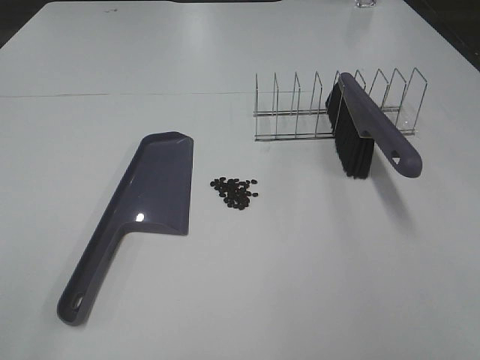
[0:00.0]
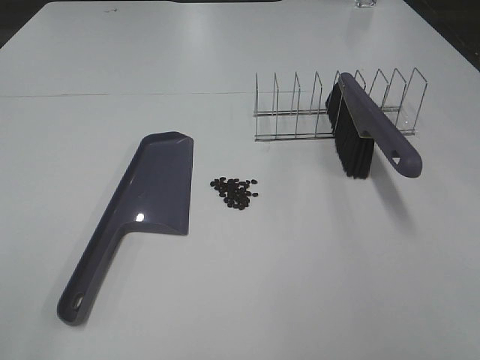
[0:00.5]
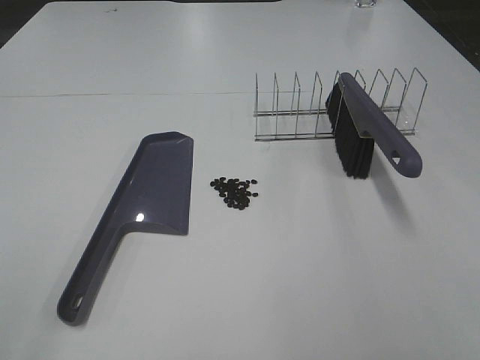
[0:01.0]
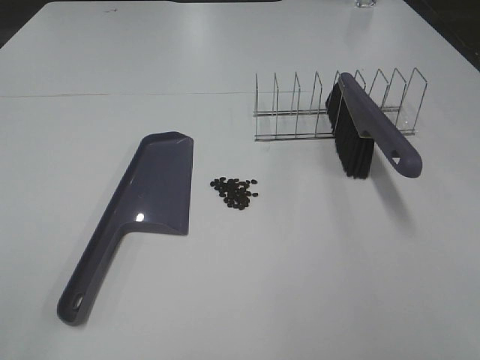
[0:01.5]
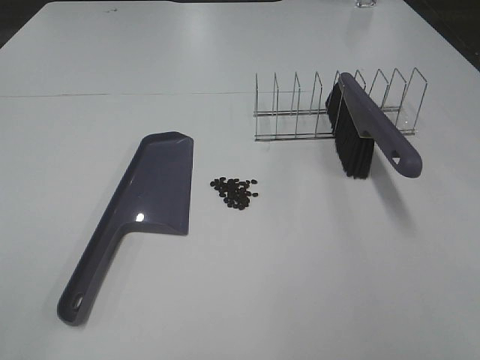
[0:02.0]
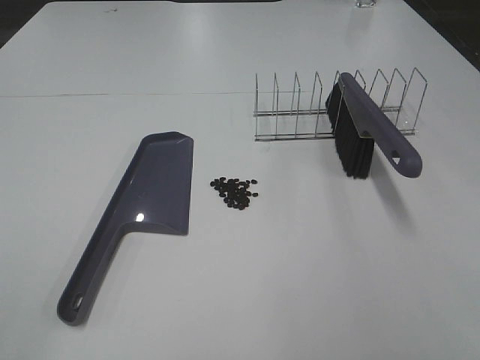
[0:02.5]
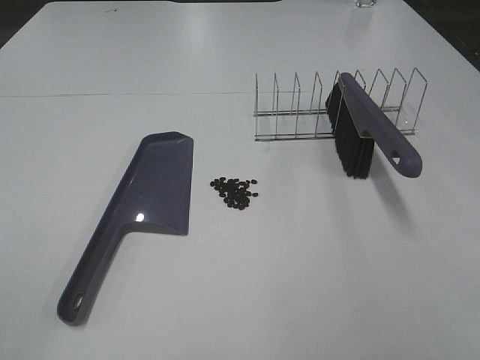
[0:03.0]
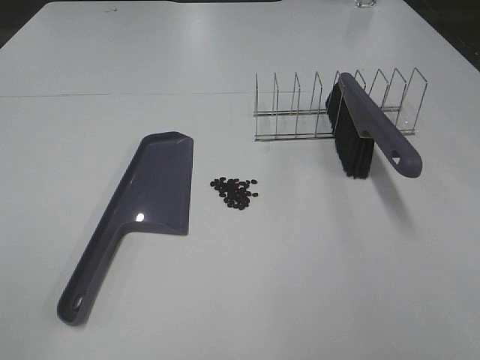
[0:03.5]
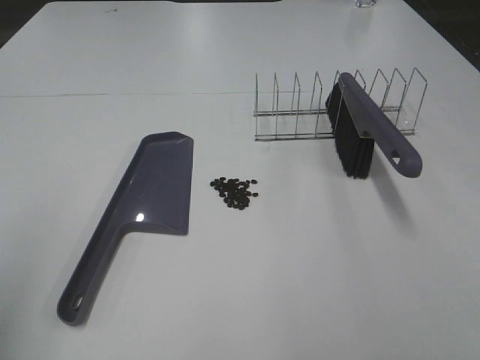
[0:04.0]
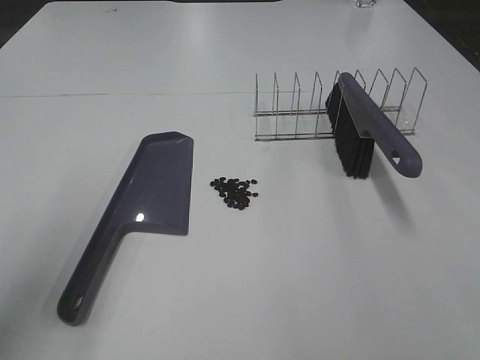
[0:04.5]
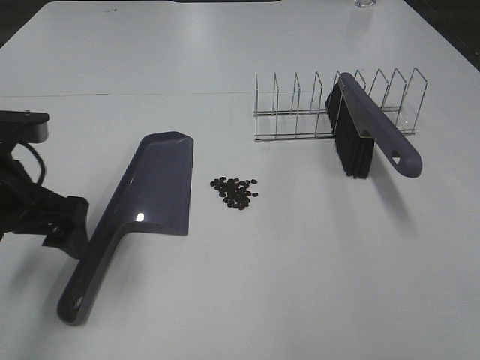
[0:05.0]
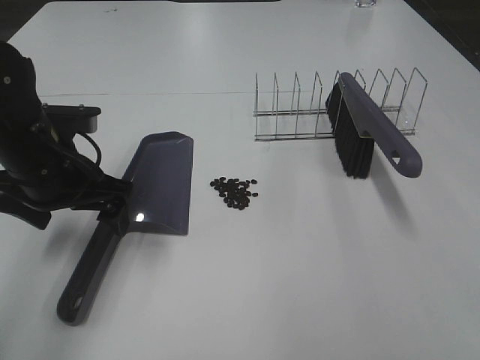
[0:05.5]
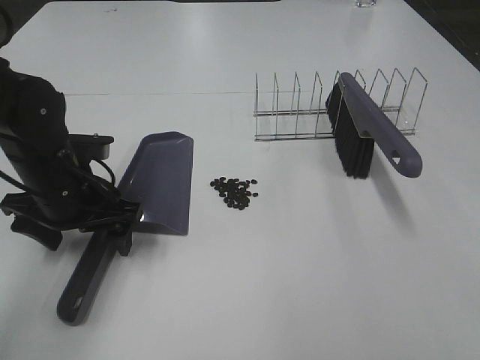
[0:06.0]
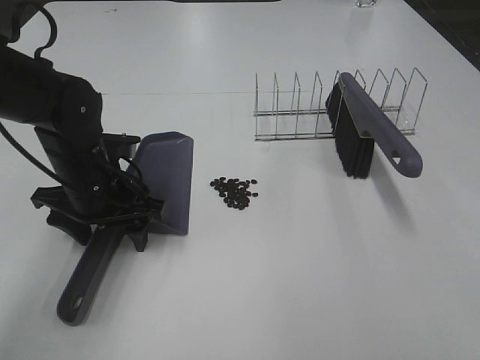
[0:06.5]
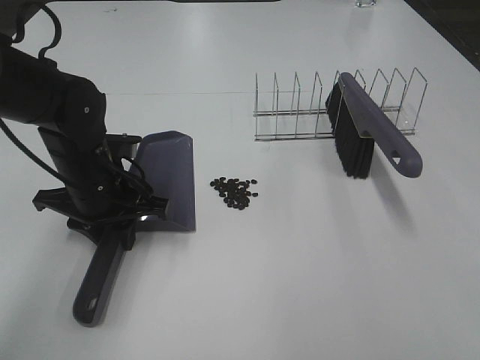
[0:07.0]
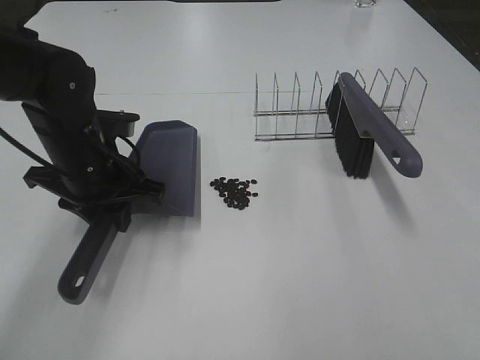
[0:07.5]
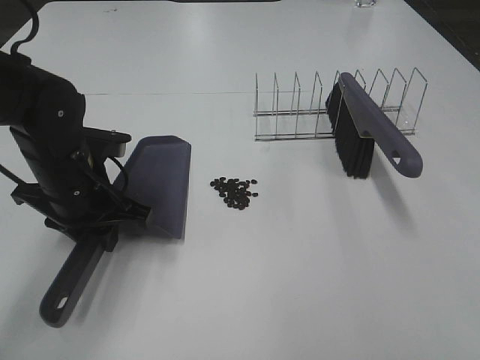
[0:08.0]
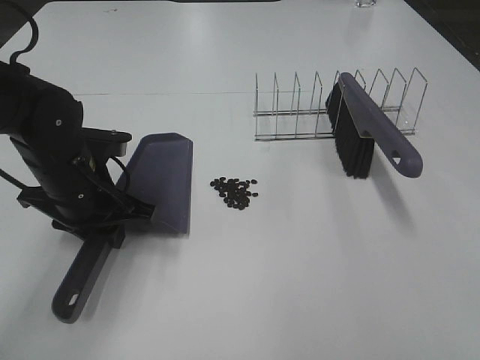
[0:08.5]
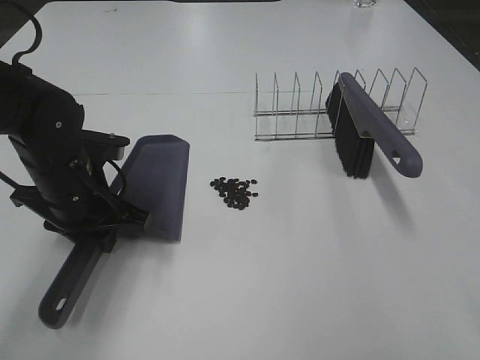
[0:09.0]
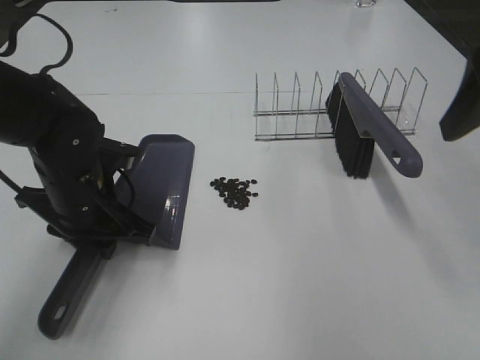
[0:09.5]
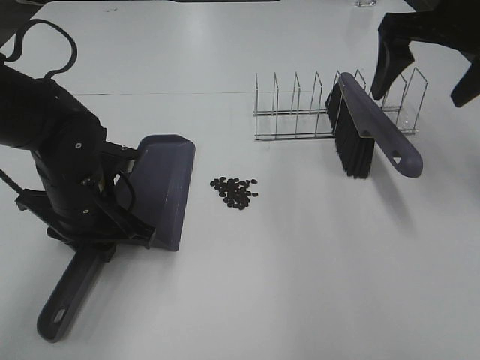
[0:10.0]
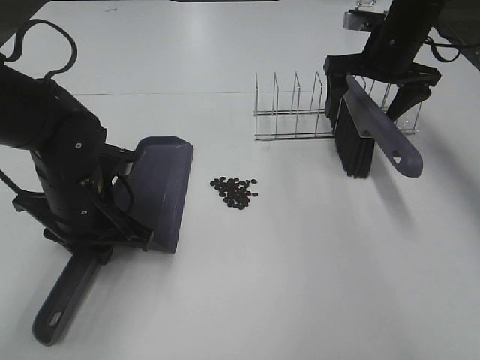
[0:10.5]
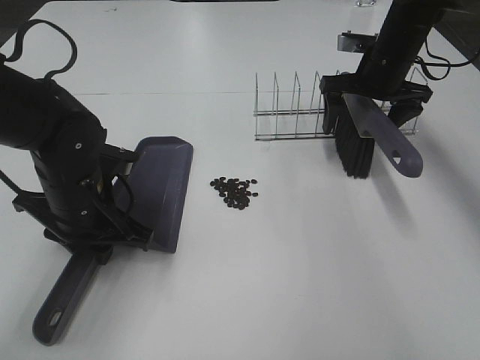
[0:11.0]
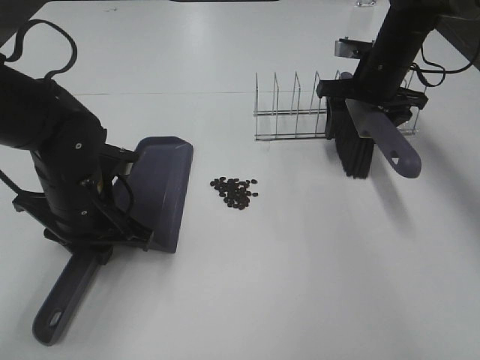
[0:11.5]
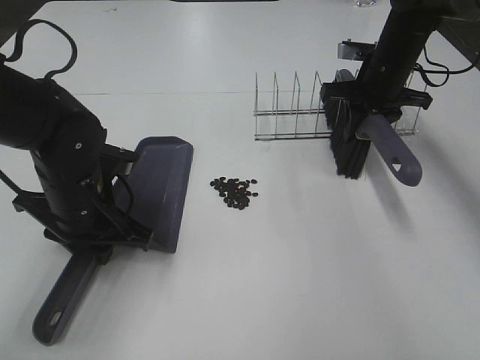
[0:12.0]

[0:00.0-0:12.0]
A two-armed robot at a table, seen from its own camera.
Task of the whole recording: Sweep Coffee Bean.
Step, 0.0 to 7.0 s: Left hand: grab the dustpan.
Step, 9.0 to 11.5 s: Right hand:grab the broom.
0.0 to 2.0 s: Neither gripper changes place.
4.0 to 6.0 s: The left gripper goes roughly 30 cm forward, downward and to the right.
6.0 to 8.0 s: The left gripper closes up.
8.0 to 10.0 s: The right gripper moves forward, some 40 cm.
10.0 to 12.0 s: The right gripper heads downward and forward, covering about 15 cm, and closes its fingers.

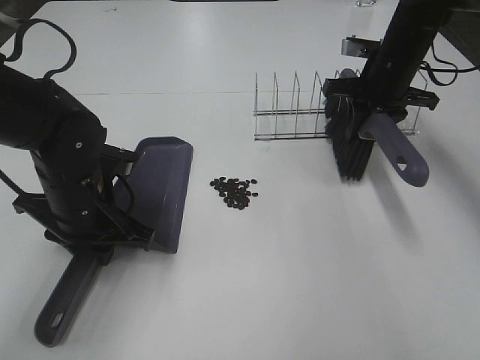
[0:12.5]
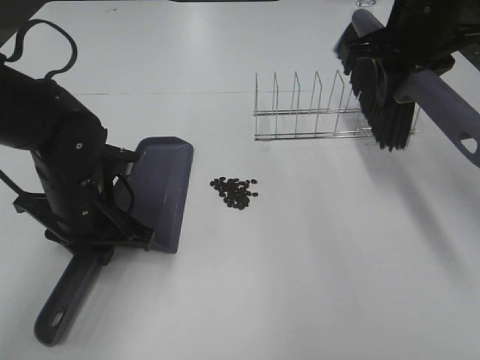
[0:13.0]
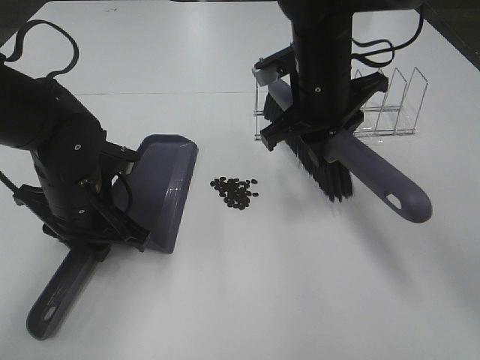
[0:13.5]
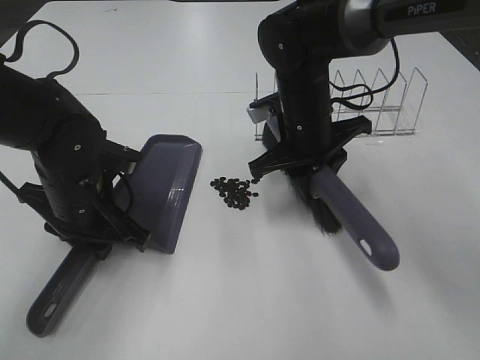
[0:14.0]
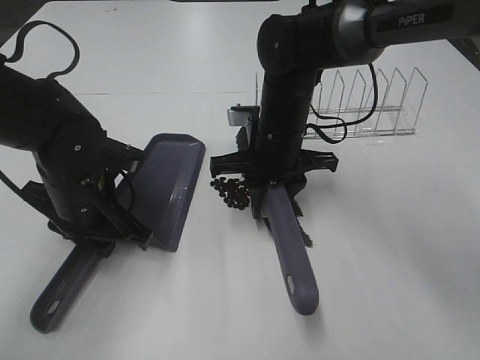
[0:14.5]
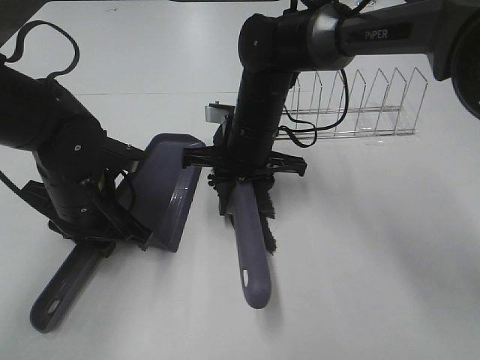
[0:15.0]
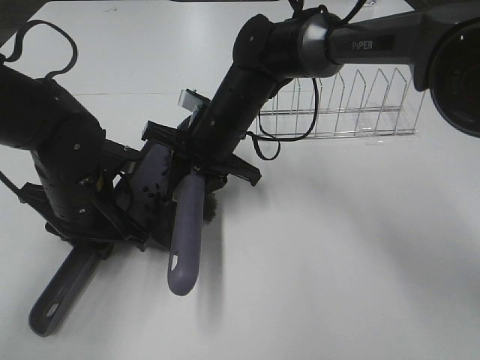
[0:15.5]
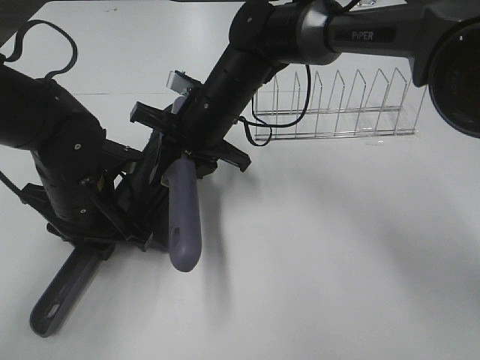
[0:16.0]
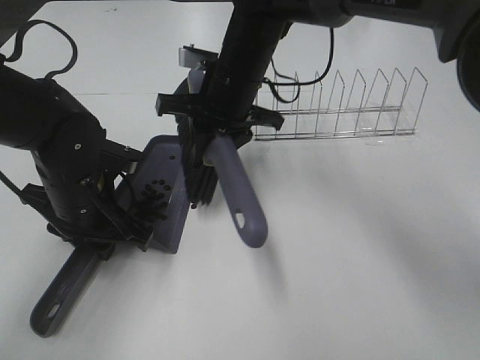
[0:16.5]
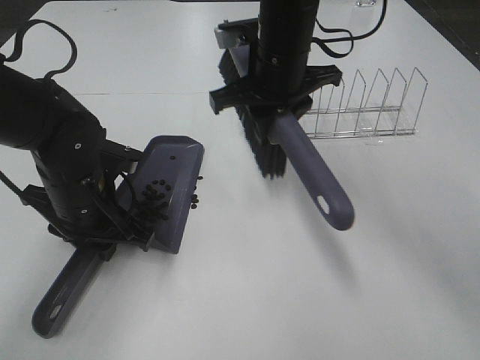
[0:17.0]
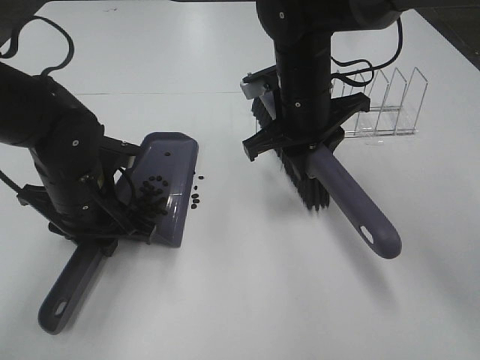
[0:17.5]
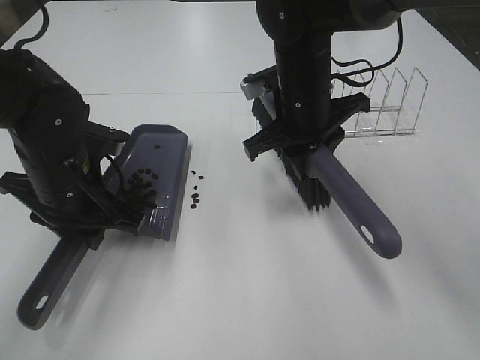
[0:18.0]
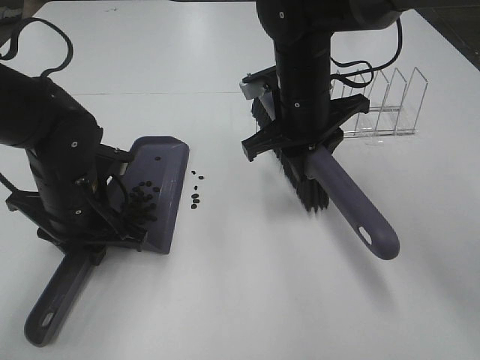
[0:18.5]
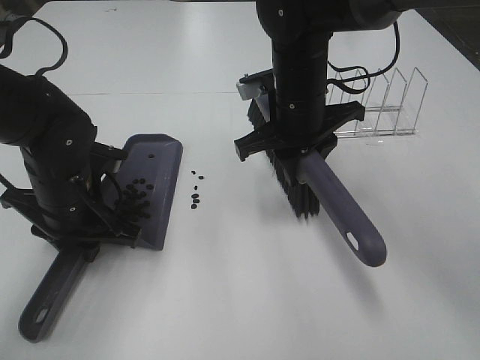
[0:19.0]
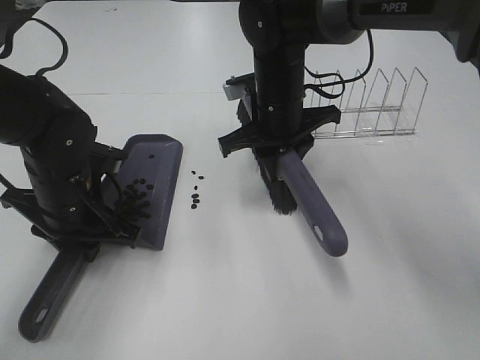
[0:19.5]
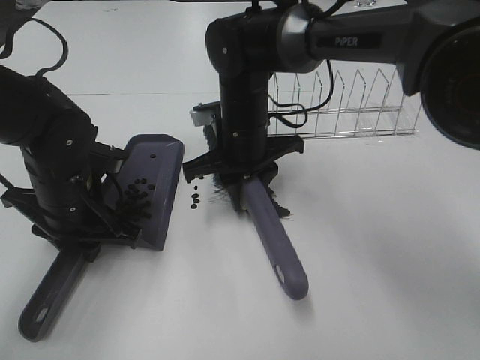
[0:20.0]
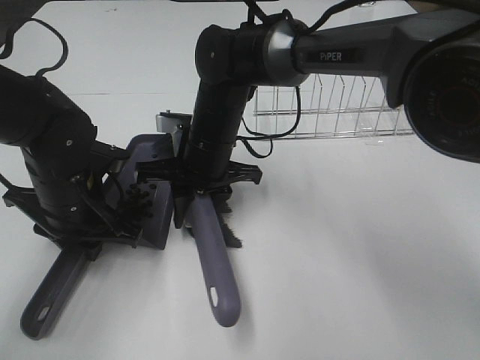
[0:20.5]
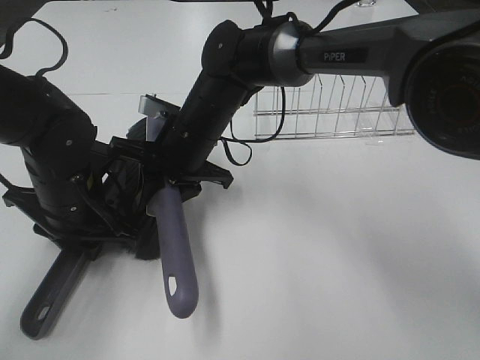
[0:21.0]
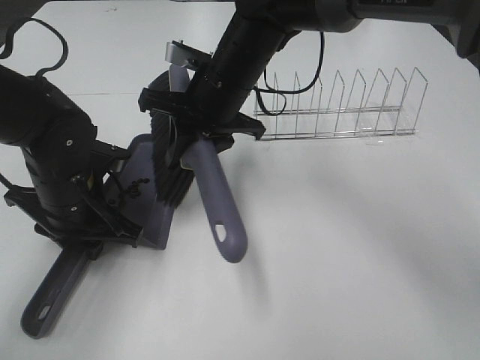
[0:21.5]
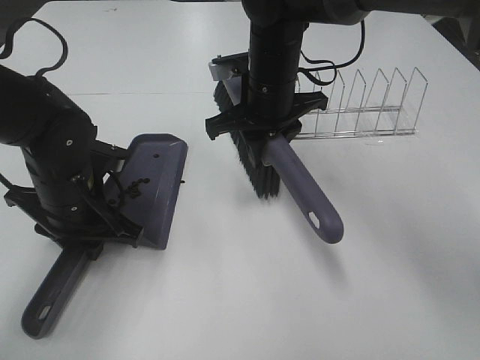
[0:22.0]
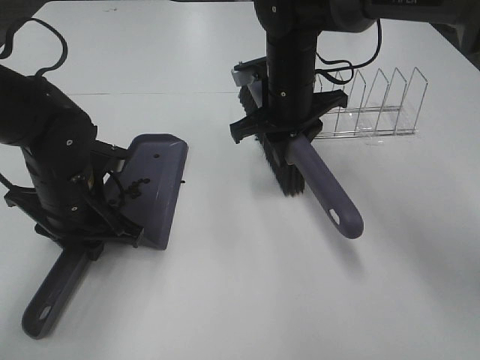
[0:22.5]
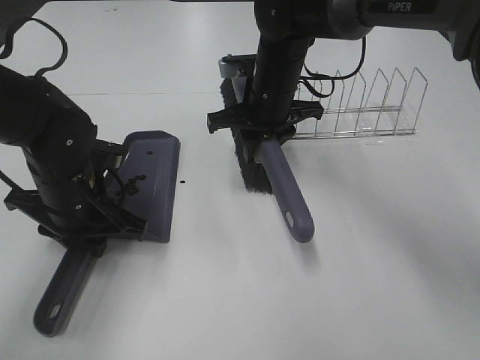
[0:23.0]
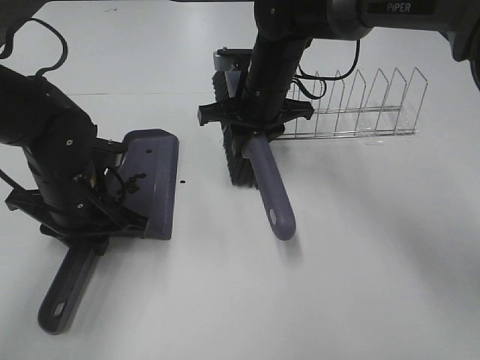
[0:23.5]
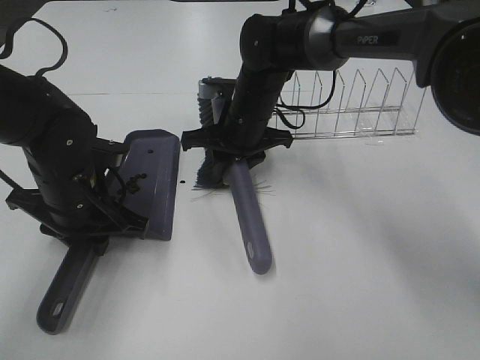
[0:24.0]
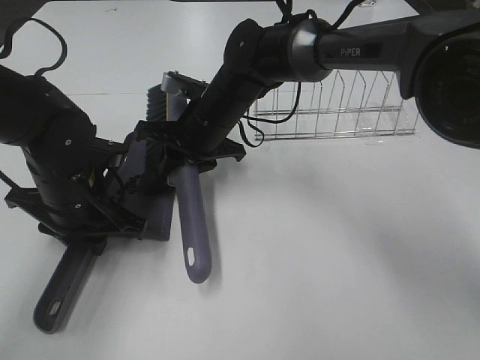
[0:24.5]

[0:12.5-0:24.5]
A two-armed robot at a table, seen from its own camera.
Task of the whole recording: Sweep Coffee Bean.
12.5 to 14.5 s: The right gripper is displaced to the left and backward by approximately 20 cm.
14.5 to 16.5 s: The right gripper is displaced upward by about 5 cm.
16.5 to 18.5 s: The right gripper goes some 5 cm to the right.
18.5 to 20.5 s: The right gripper goes approximately 10 cm to the left and downward.
20.5 to 22.5 s: The right gripper shifts some 10 cm to the right and forward.
22.5 to 24.5 s: The right gripper goes about 10 cm to the left.

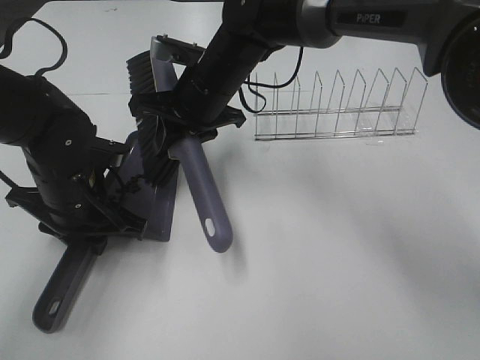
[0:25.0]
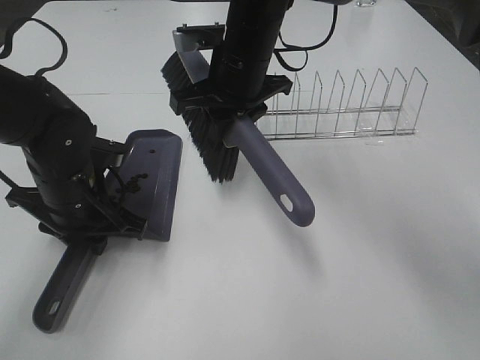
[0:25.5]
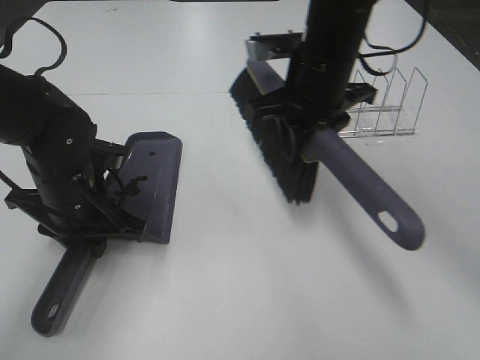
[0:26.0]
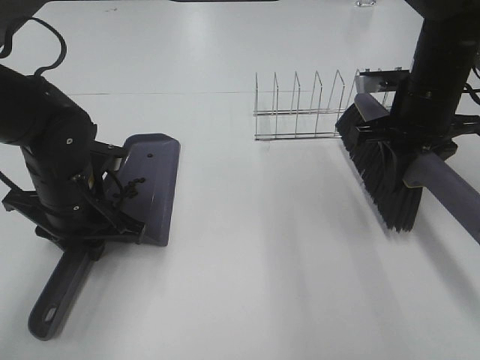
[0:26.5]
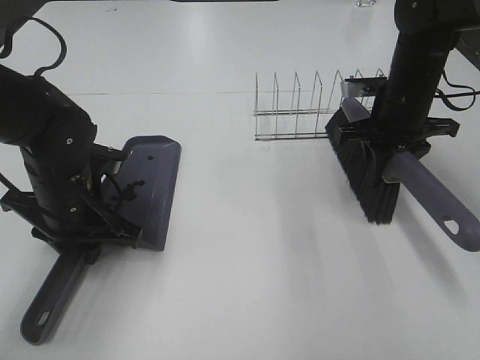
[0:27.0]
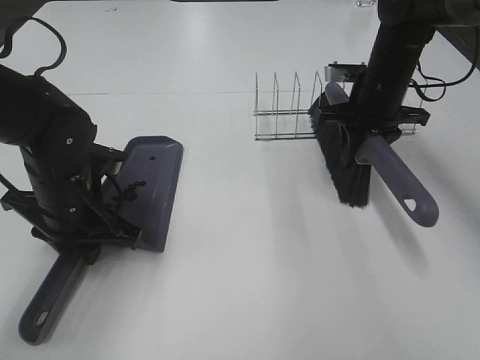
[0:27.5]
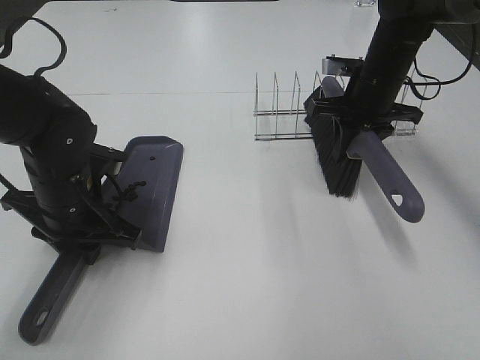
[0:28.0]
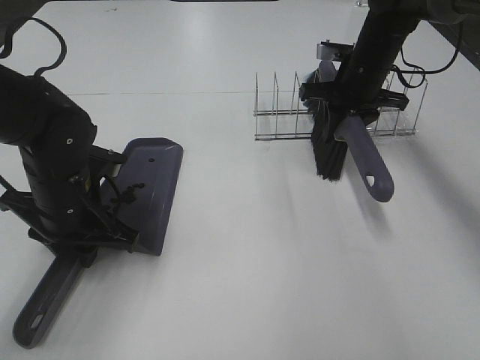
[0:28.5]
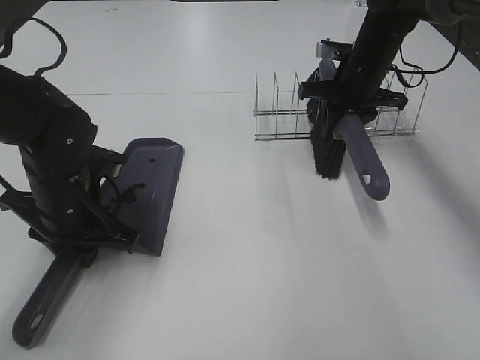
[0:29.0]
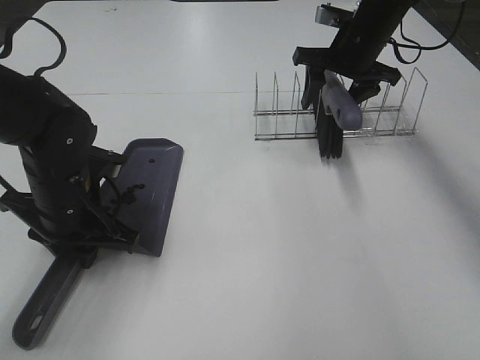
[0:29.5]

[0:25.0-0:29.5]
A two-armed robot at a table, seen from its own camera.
Task of the whole recording: Sweep Coffee Bean.
25.0 to 27.0 s: The right gripper shifts some 25 cm to the right.
27.0 to 29.5 s: The right gripper shifts about 10 cm forward, and opens up.
